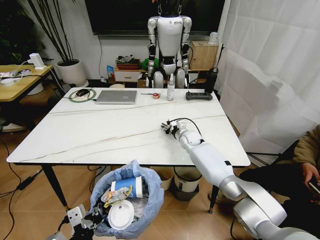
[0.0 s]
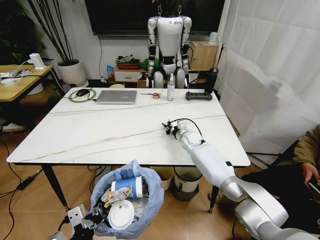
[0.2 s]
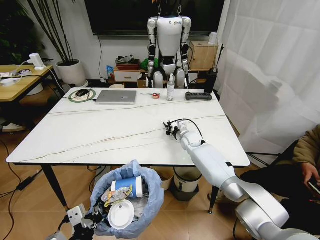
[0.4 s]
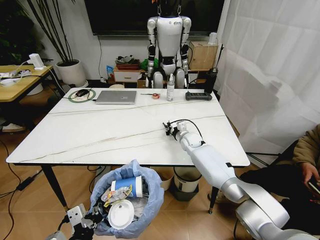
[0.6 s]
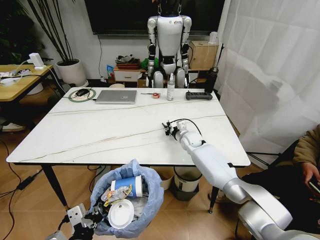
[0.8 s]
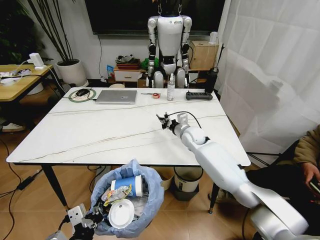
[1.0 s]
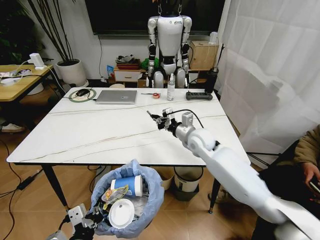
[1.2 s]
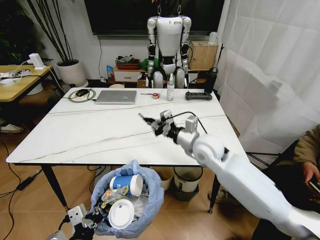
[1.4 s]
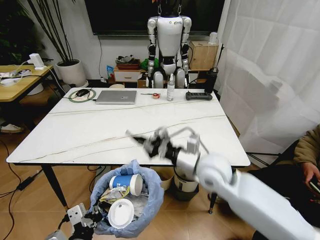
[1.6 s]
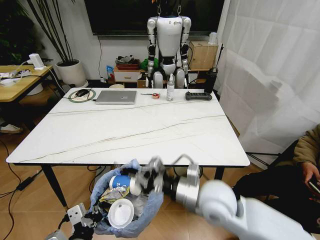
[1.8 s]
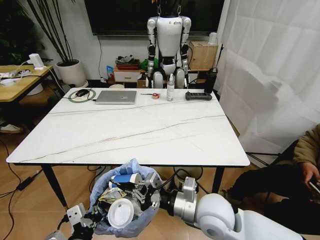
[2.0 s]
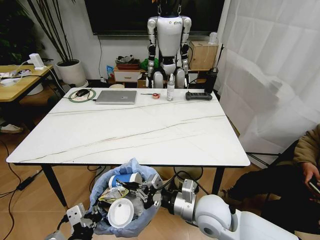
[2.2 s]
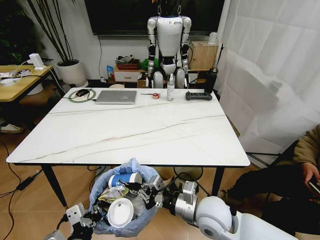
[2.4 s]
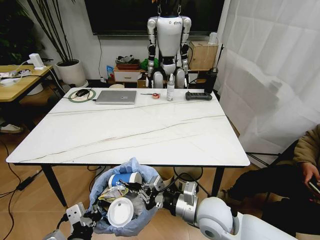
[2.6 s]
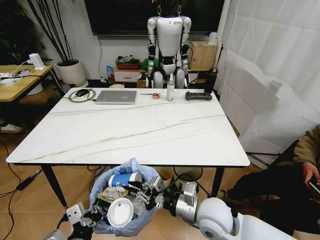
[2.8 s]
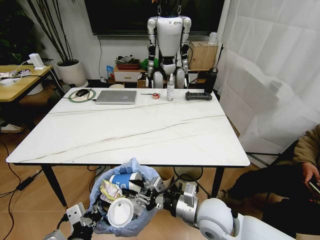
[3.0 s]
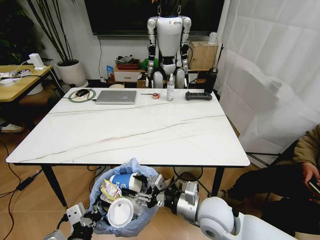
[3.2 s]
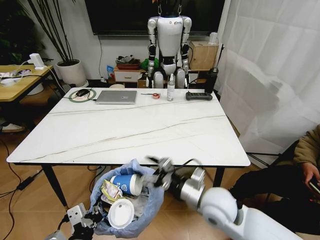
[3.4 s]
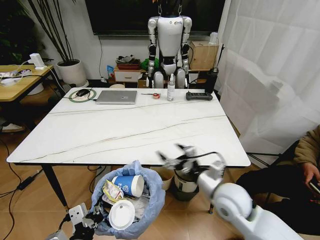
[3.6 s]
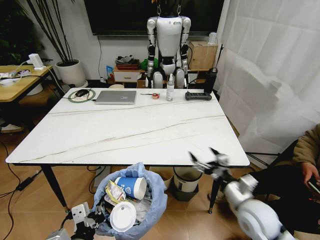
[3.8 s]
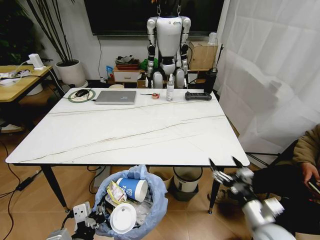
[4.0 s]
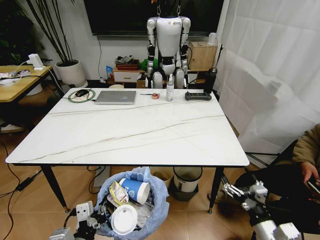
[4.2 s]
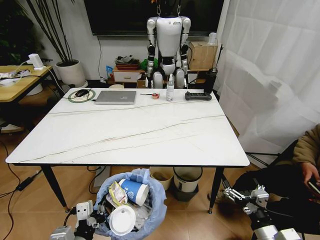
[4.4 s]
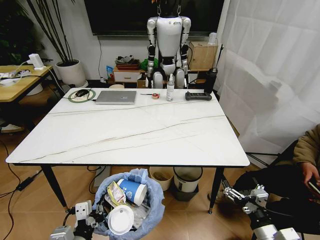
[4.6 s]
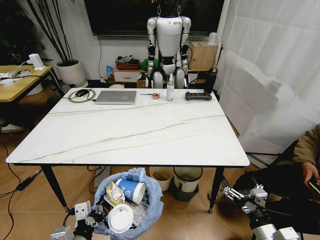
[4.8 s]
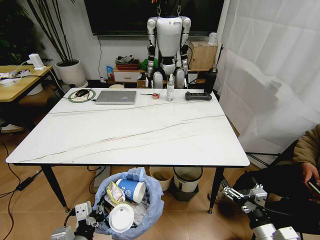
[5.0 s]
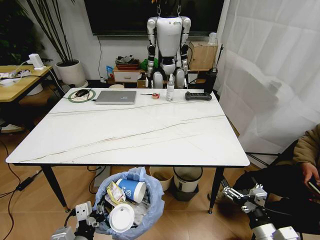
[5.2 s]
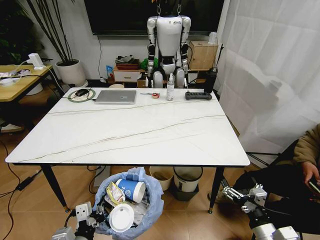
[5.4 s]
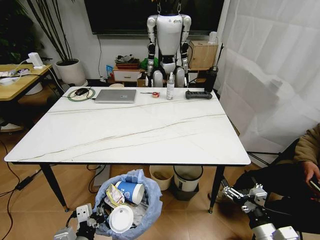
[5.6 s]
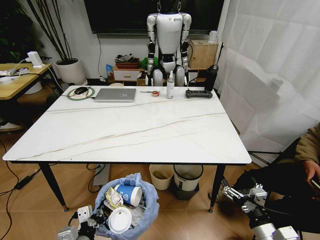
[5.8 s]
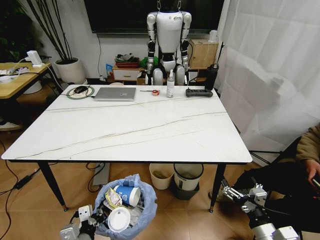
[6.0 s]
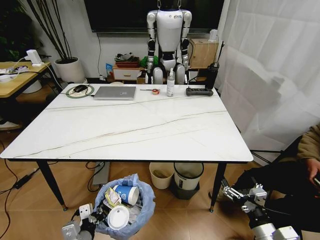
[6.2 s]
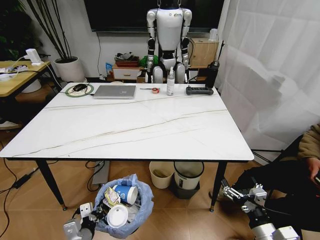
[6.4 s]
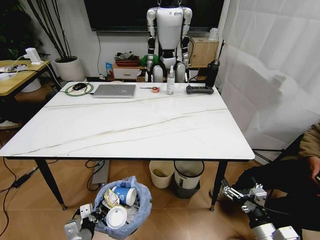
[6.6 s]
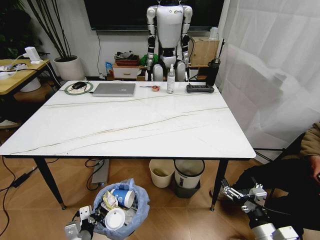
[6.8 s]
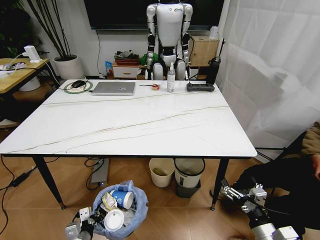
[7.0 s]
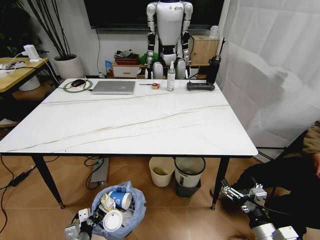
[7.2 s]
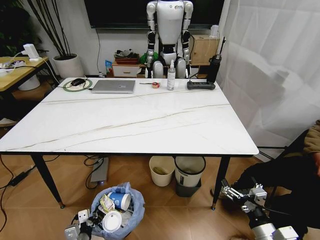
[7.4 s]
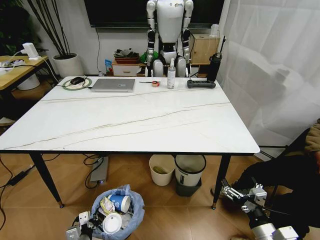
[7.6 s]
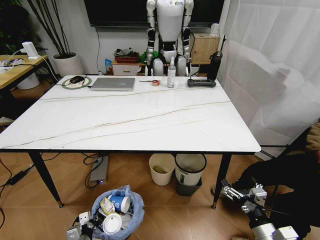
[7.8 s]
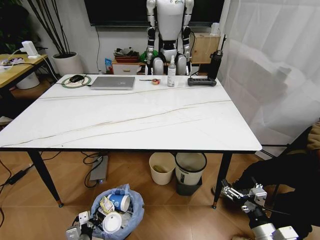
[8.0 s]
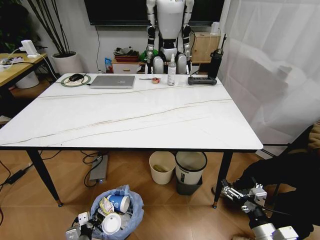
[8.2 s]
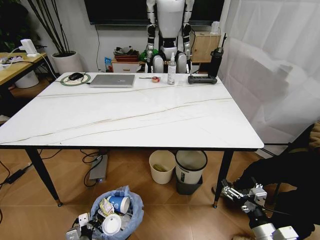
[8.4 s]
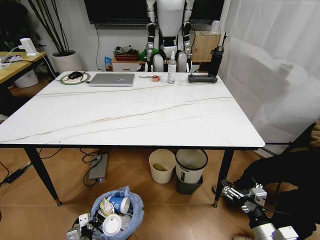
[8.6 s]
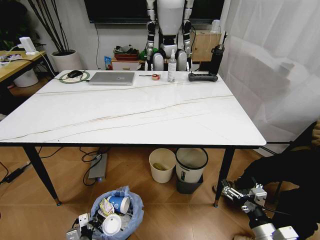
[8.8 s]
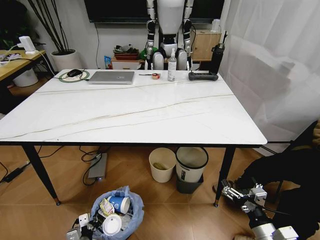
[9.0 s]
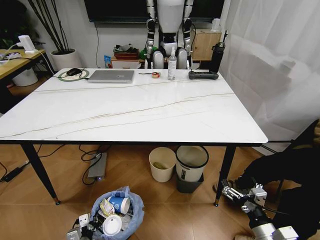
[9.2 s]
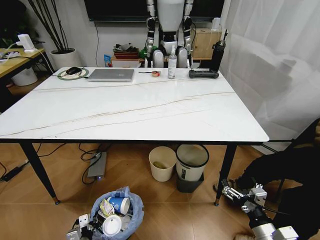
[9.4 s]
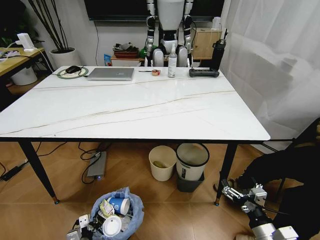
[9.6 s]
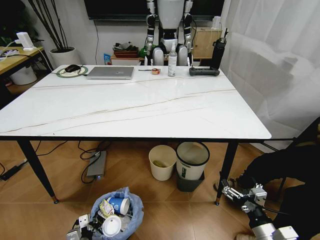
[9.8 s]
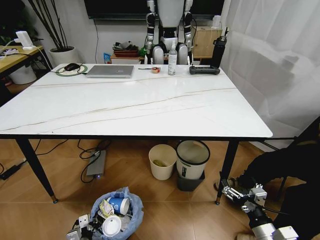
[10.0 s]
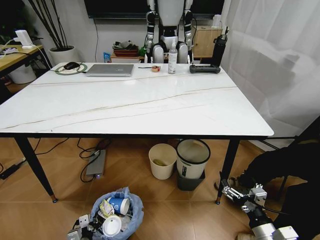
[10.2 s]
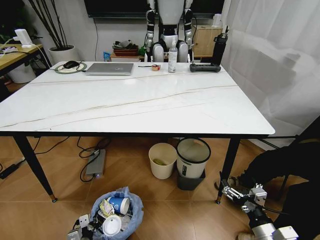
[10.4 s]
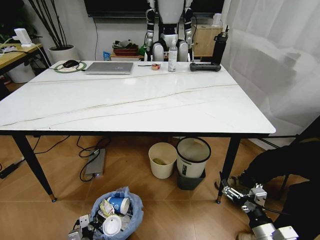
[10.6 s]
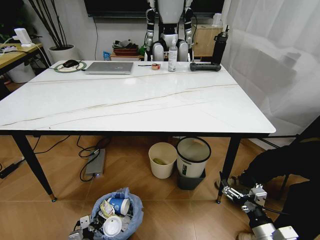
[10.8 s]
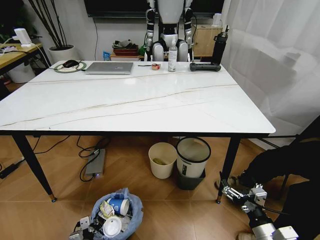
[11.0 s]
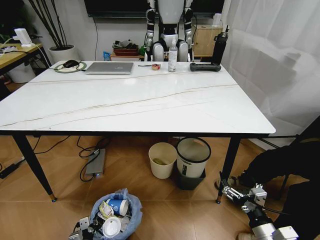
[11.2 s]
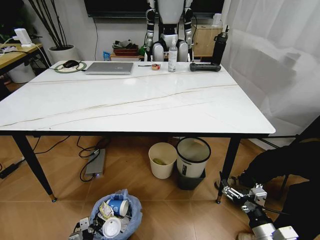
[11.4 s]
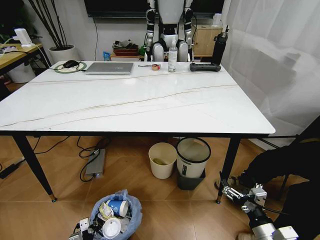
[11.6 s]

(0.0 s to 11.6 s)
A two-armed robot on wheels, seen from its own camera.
Task of the whole recording: Pick up the trash bin and place the trash from the table into it.
0.0 s - 1.4 s: The right gripper moves backward and upward, roughly 25 cm, and closes.
1.4 s - 2.8 s: The right gripper moves backward and downward, approximately 20 cm.
2.8 s - 4.4 s: The right gripper travels to the right and backward by some 20 cm, and opens its fingers.
4.4 s - 5.8 s: The left gripper moves downward, about 5 cm.
5.8 s - 7.2 s: The left gripper heads downward and to the left, covering roughly 15 cm.
10.2 s - 11.6 s: There are only small adjustments of the grippers.

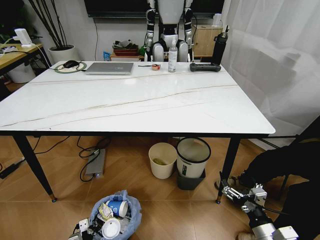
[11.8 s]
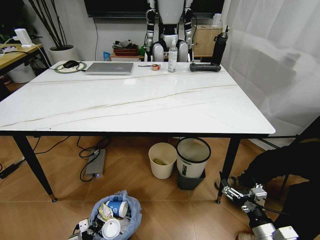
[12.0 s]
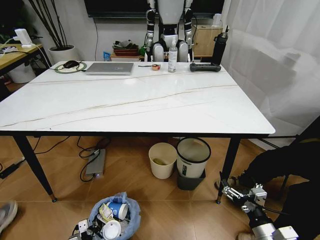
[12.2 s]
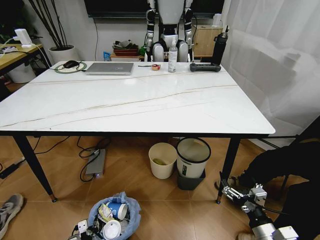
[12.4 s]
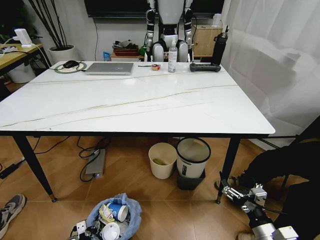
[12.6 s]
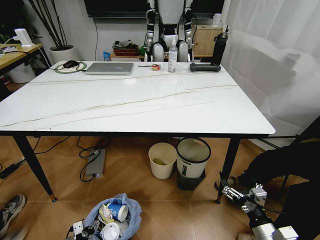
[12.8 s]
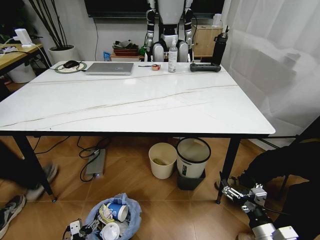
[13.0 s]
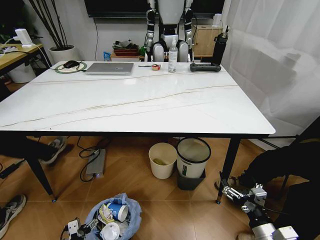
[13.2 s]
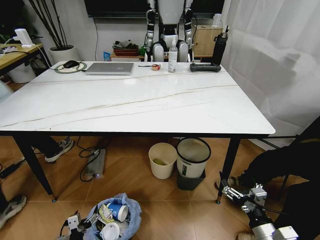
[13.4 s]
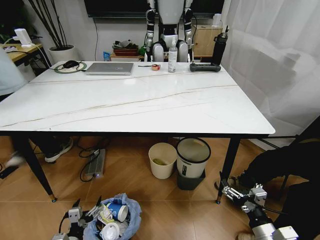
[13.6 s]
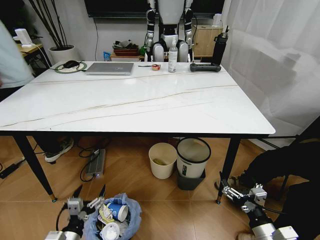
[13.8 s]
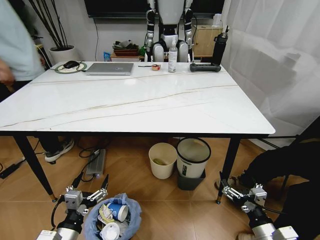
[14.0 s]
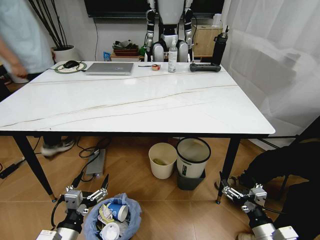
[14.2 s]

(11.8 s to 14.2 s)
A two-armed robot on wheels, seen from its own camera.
Task of the whole recording: Pick up the trash bin and place the trash from the table into it.
11.8 s - 13.0 s: The left gripper opens up.
13.0 s - 14.2 s: The left gripper goes about 20 cm upward.
